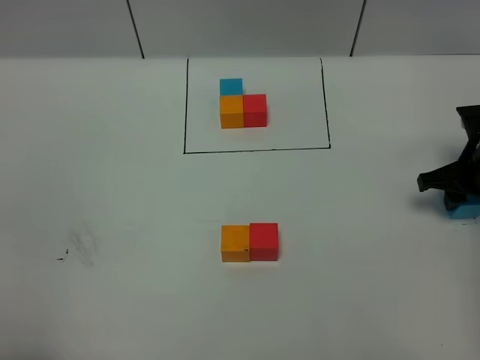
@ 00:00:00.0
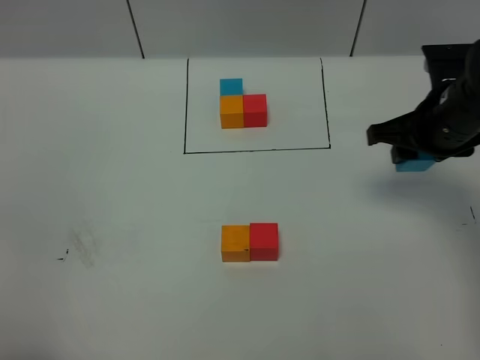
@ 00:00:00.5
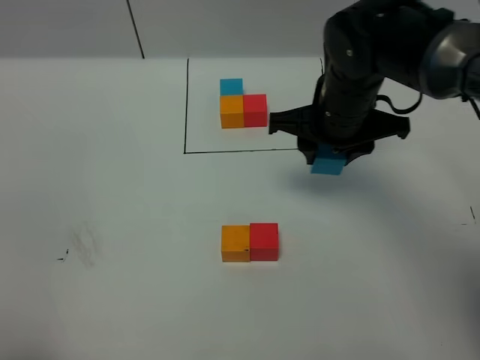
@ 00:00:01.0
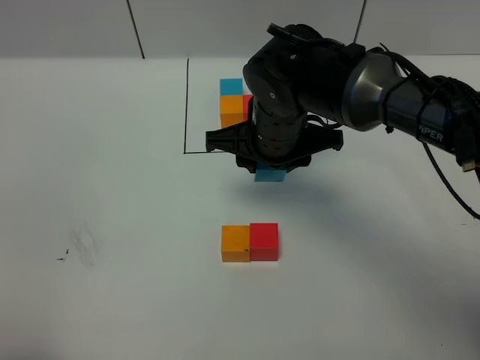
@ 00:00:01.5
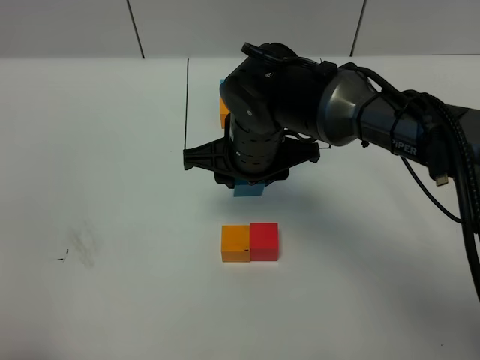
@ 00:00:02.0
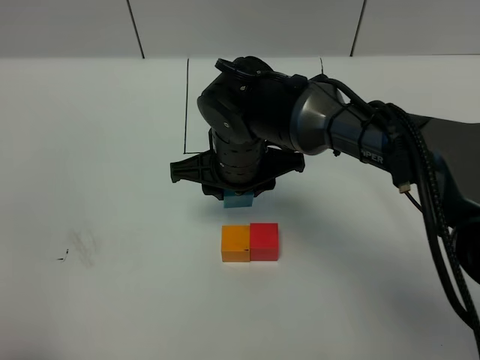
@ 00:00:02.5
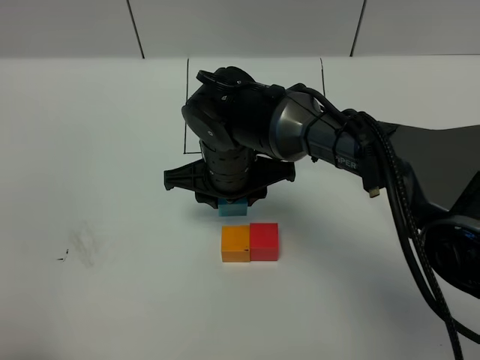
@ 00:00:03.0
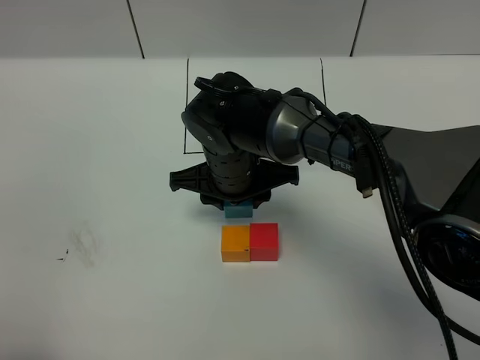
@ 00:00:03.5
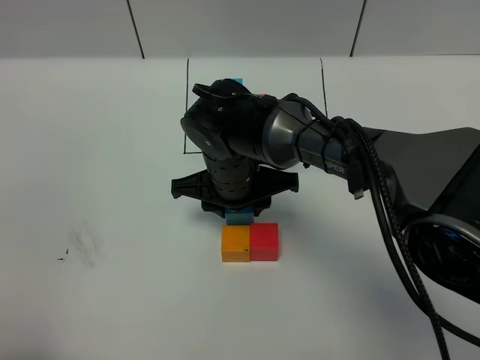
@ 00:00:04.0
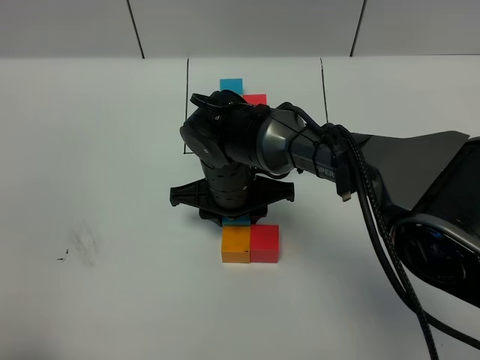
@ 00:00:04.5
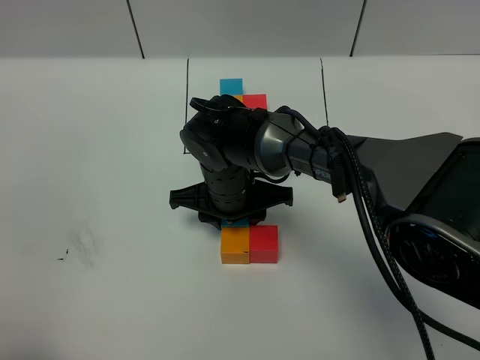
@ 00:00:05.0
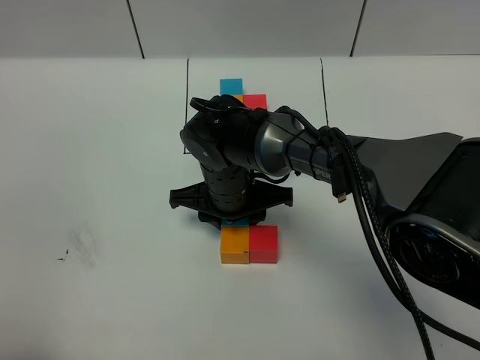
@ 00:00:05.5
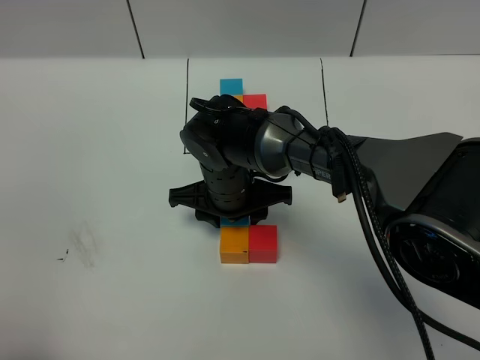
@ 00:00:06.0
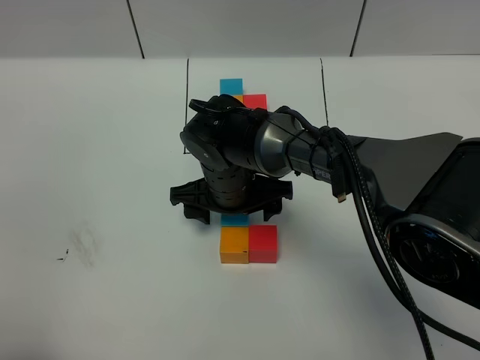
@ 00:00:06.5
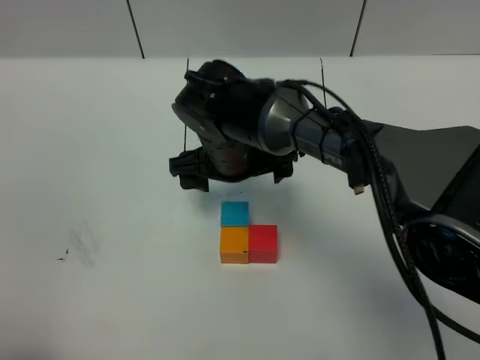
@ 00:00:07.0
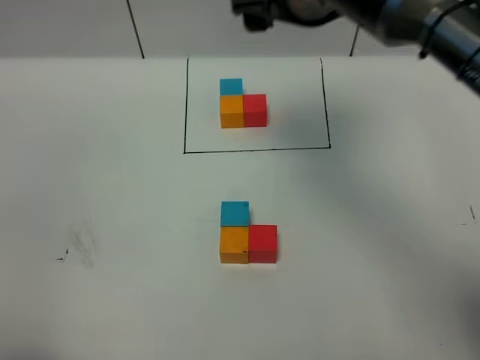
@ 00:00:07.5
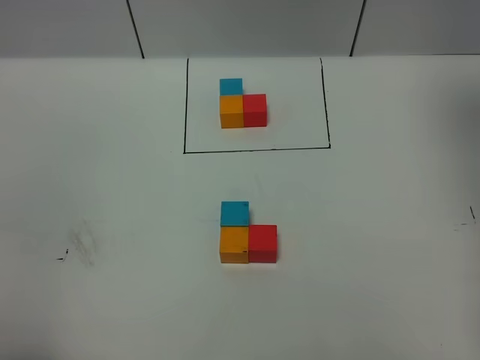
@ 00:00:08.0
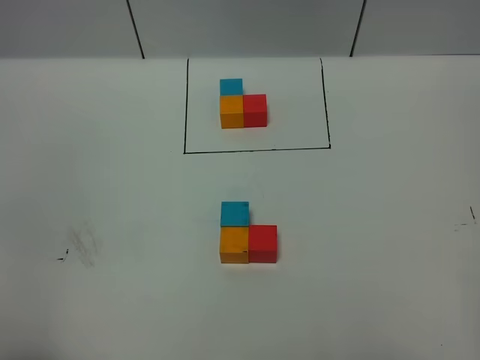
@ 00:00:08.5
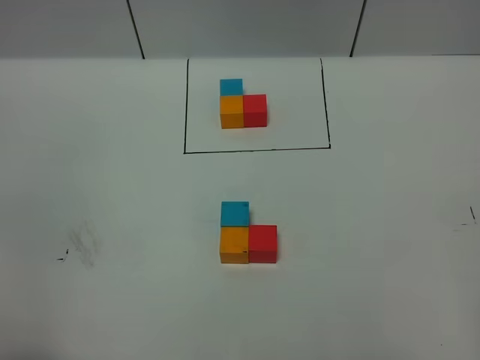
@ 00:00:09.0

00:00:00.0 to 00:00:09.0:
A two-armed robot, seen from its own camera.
Task of the whole recording: According to the building block template in front, assemble the scattered blocks together.
Step, 00:00:00.0 to 00:00:06.0: Put the blue cube on the behind of the orange cube.
00:00:00.0 to 00:00:02.0: The right gripper is displaced to the left by some 30 cm.
00:00:02.0 to 00:00:04.5: The right gripper heads downward, covering some 5 cm.
00:00:04.5 to 00:00:07.0: The right gripper ends up roughly 5 cm from where it was, and opens up.
00:00:07.0 to 00:00:09.0: The right gripper travels to the right, upward and backward by roughly 60 cm.
